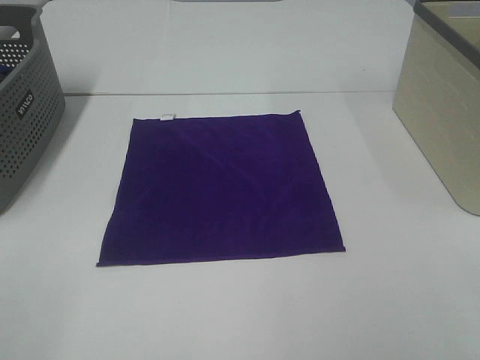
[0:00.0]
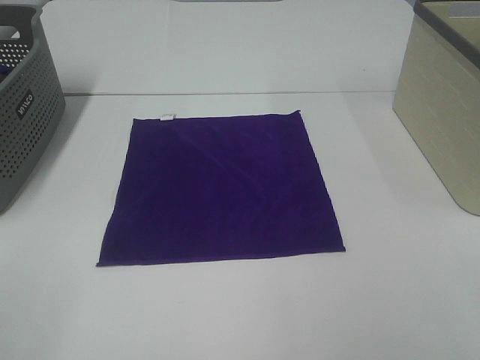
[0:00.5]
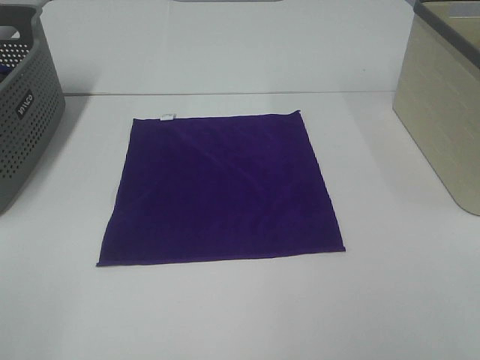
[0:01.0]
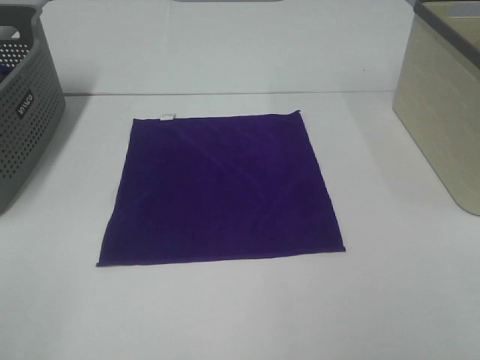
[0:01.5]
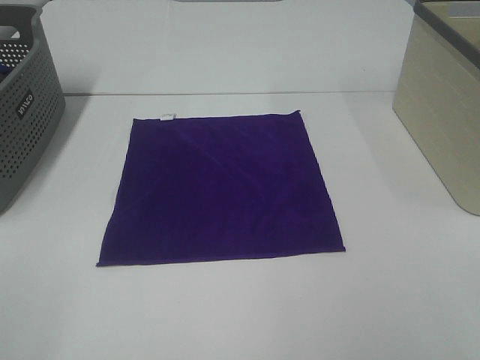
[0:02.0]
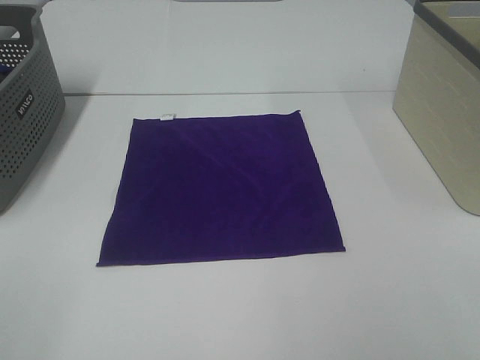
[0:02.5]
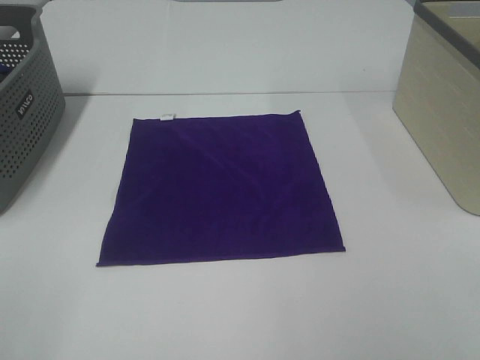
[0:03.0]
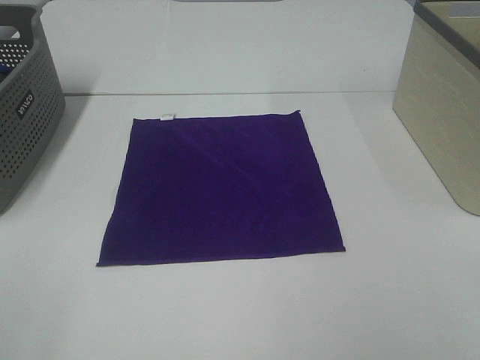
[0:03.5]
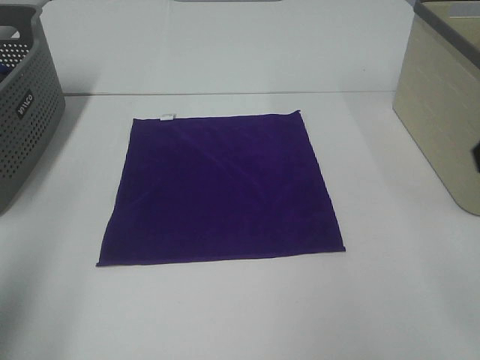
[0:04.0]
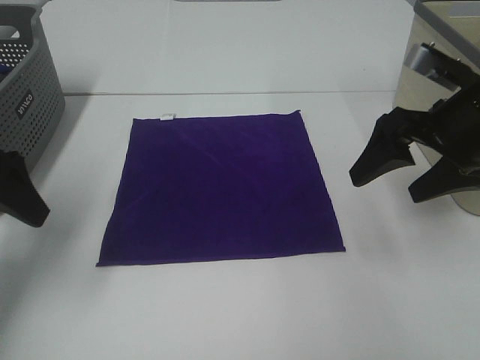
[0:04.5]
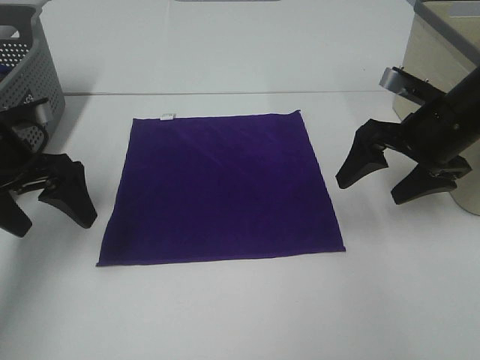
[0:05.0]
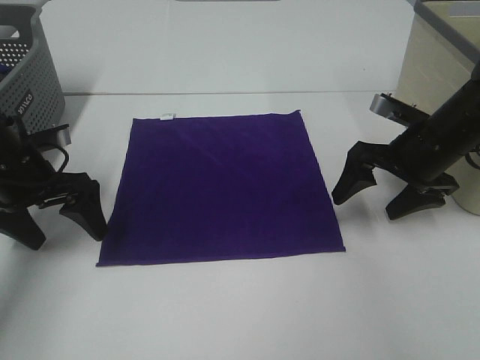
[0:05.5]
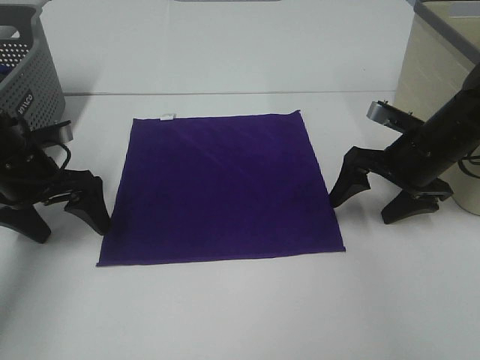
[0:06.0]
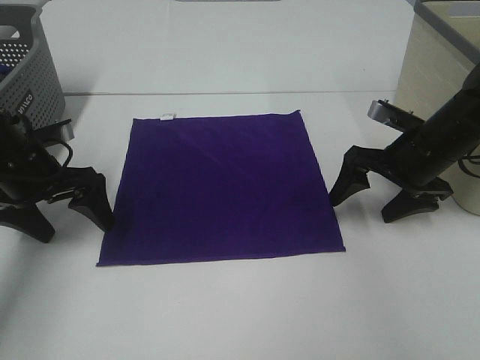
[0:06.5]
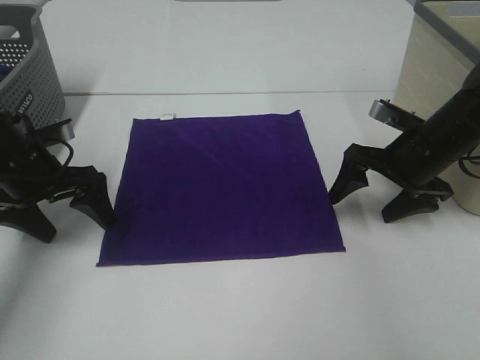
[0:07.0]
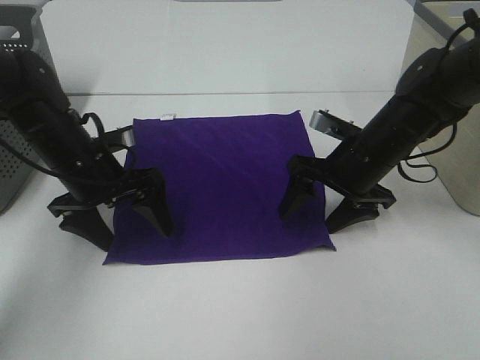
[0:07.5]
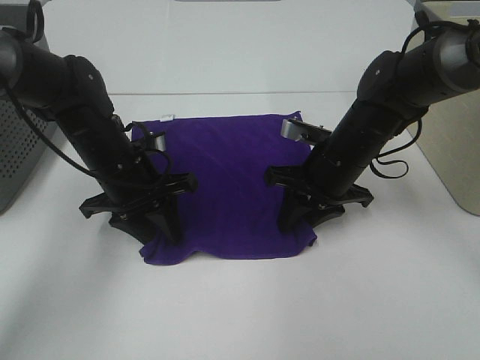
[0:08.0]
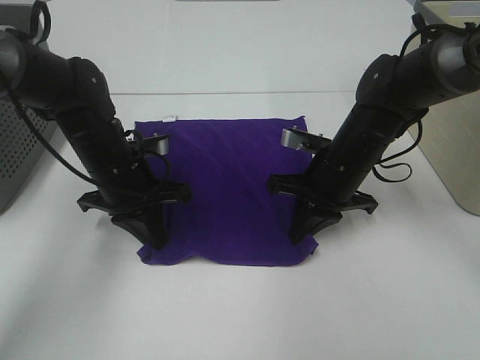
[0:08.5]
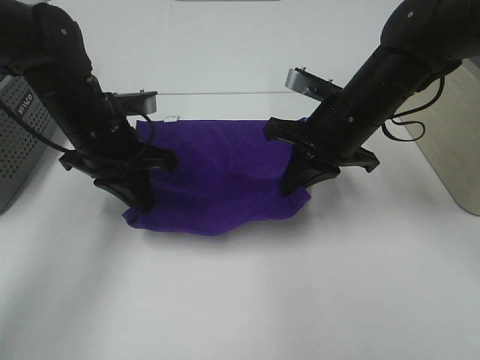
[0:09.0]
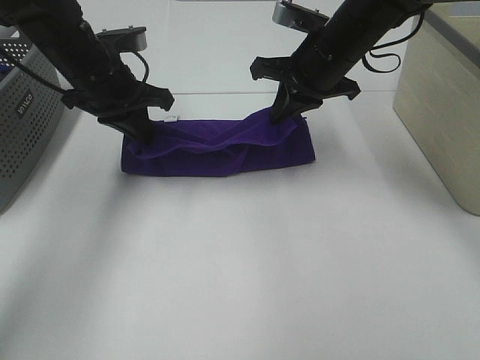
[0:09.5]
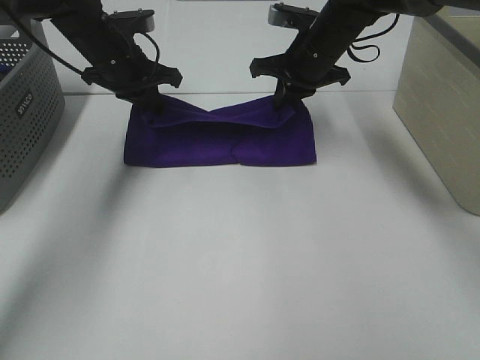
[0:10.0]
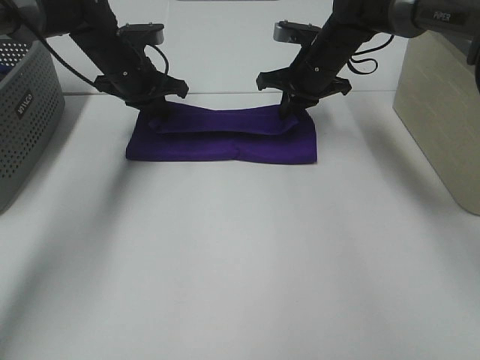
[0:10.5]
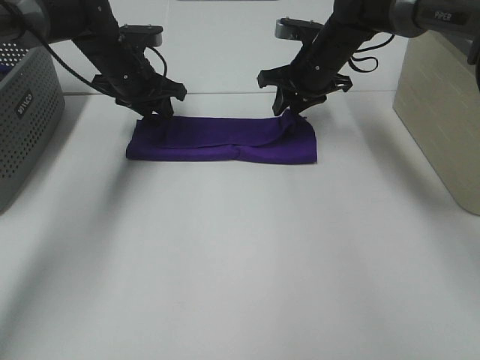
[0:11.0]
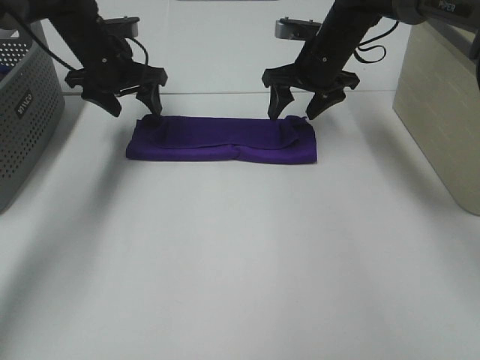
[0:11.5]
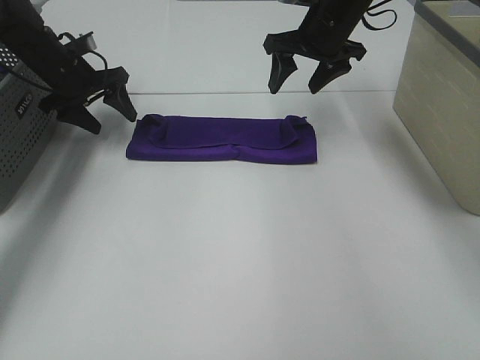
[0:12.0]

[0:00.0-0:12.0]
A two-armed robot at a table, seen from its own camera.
Task of the whole recording: Fold towels.
Step, 0:00.0 to 0:08.5: Left hand: grab the bottom left corner of purple towel.
Step, 0:00.0 to 0:08.5: Right hand: grab the bottom right corner of purple towel.
Step, 0:09.0 to 0:10.5: Left hand: fold the purple towel up.
Step, 0:09.0 to 0:10.5: Right hand: fold the purple towel up.
0:00.0 to 0:02.0: Both grippers stay put.
0:02.0 to 0:04.0: The left gripper goes some 15 cm forward.
0:04.0 to 0:06.0: The left gripper goes about 30 cm forward and downward, while the right gripper heads downward and forward, covering about 25 cm.
0:06.0 to 0:08.0: The right gripper travels to the left by some 10 cm, and closes up. The left gripper is displaced to the right by about 10 cm, and closes its fingers.
0:08.0 to 0:10.0: Both grippers move forward and upward, about 15 cm.
0:10.0 to 0:12.0: The left gripper goes approximately 10 cm to the left, and opens up. Meanwhile the right gripper opens its fingers.

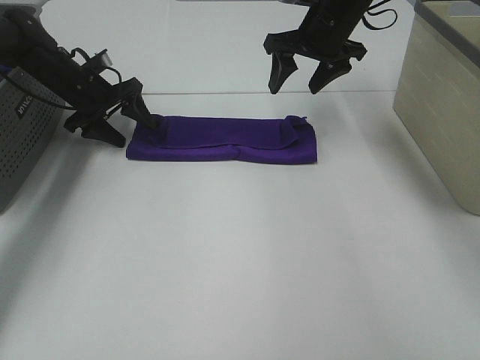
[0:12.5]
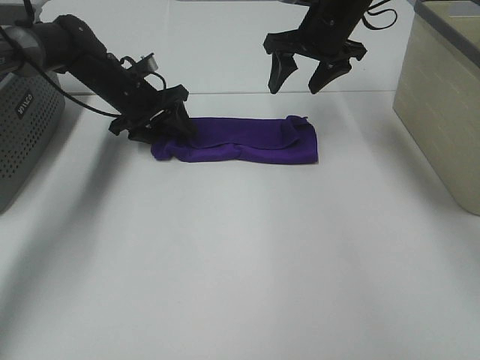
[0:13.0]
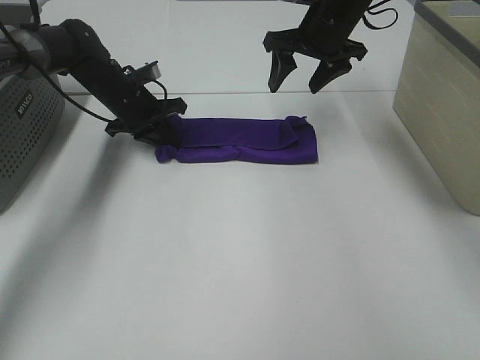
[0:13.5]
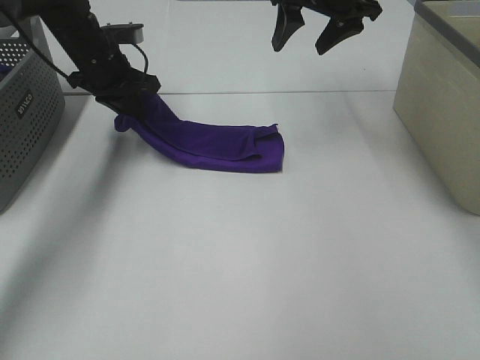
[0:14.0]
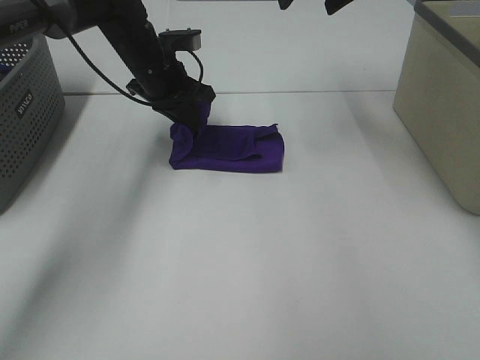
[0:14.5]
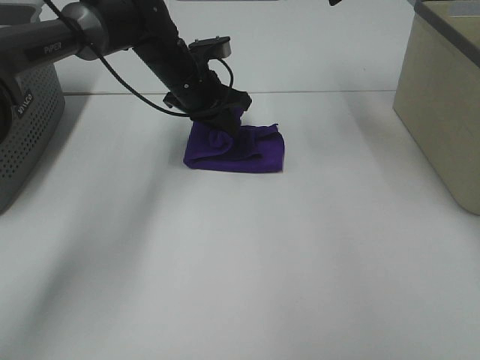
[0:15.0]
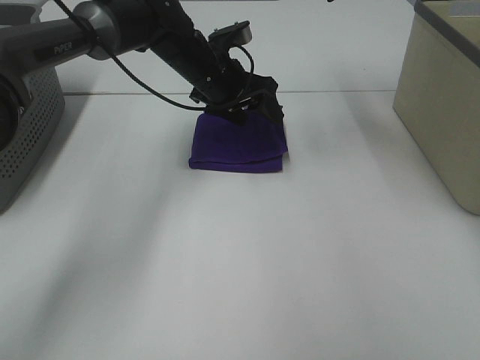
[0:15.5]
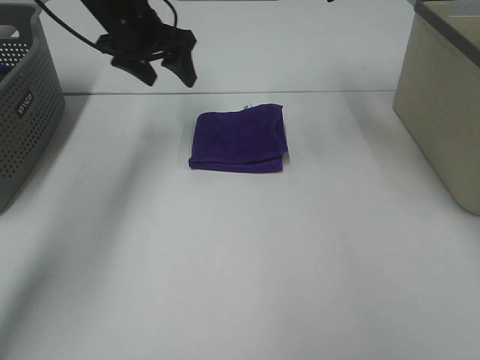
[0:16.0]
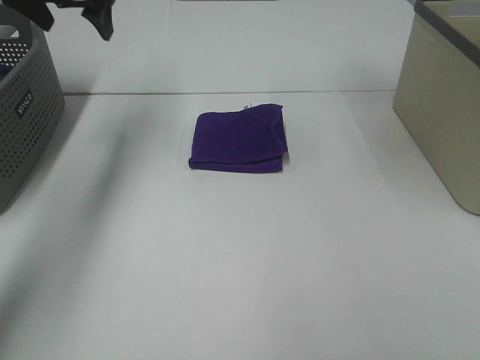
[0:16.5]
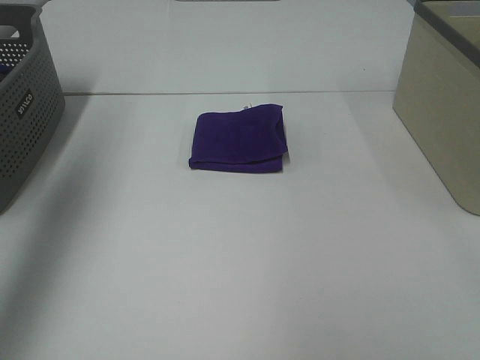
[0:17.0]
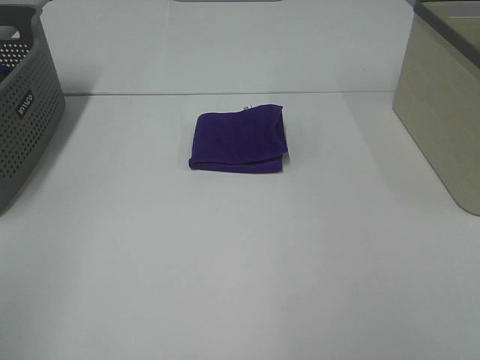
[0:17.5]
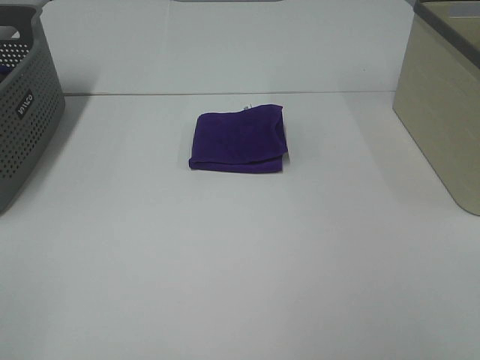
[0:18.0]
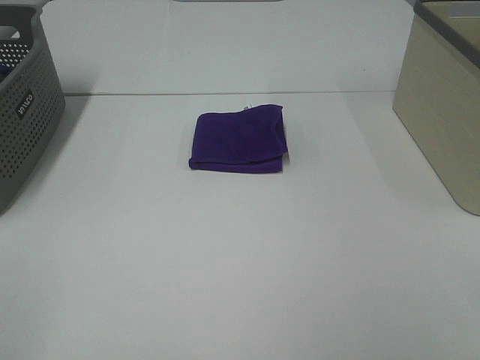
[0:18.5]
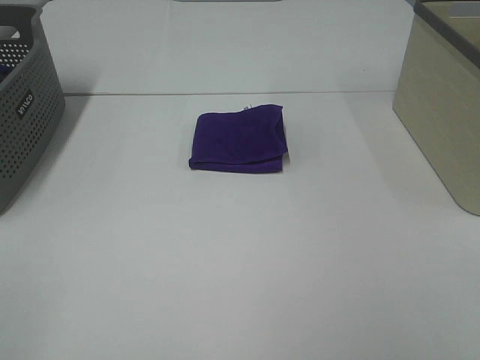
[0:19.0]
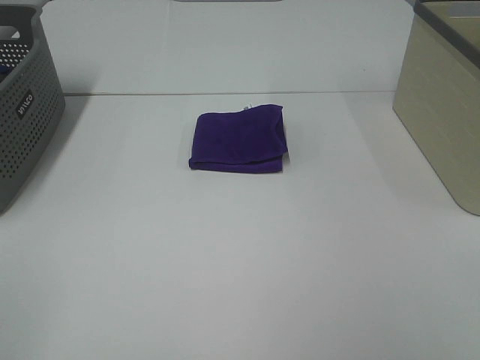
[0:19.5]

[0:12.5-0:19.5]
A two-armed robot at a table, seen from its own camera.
Task of the whole recording: Fold towels.
Step, 0:12.5 to 0:15.0: Left hand: fold the purple towel from left to right.
0:12.5 to 0:14.5: The left gripper travels to the right and upward by roughly 15 cm, and closes its fingers; the right gripper heads upward, covering roughly 10 cm.
0:14.5 to 0:16.0: The left gripper goes roughly 10 cm upward, and opens.
0:16.0 to 0:17.5: Both grippers move backward, roughly 40 cm.

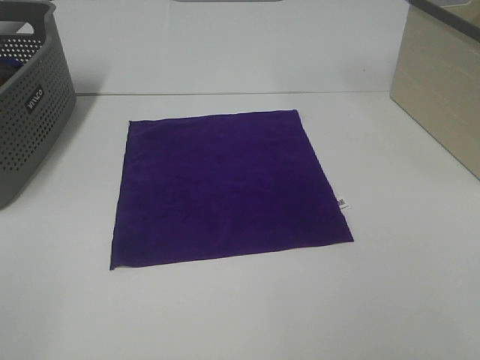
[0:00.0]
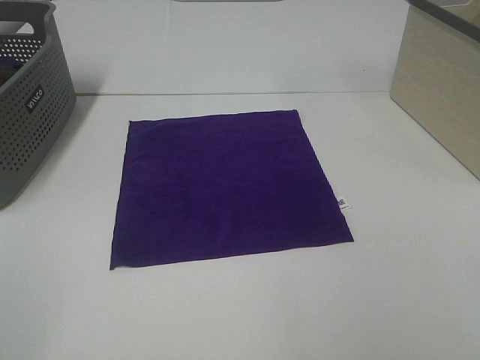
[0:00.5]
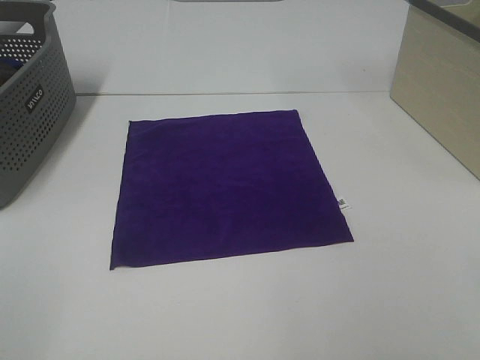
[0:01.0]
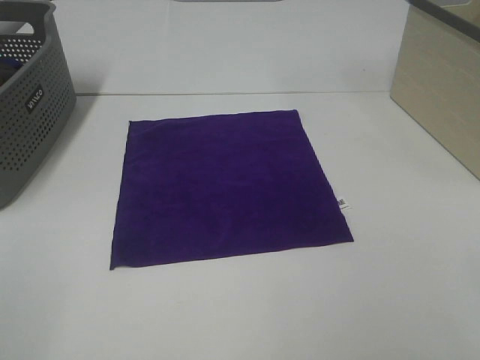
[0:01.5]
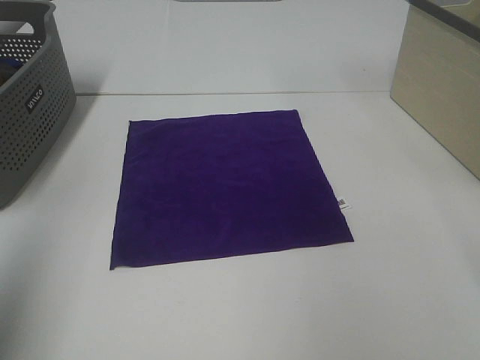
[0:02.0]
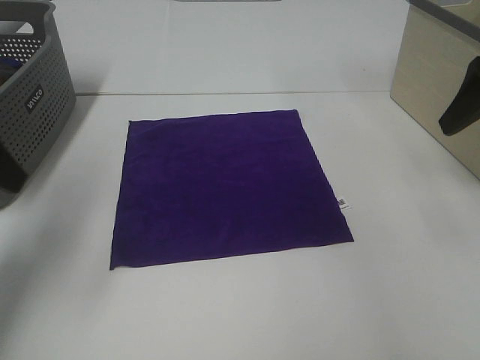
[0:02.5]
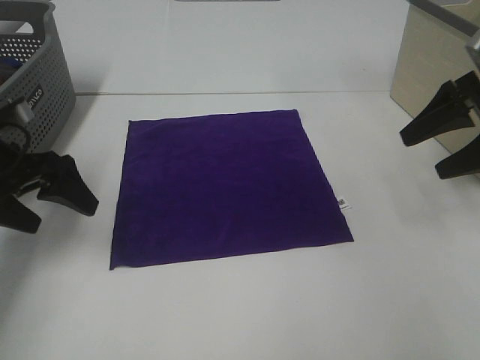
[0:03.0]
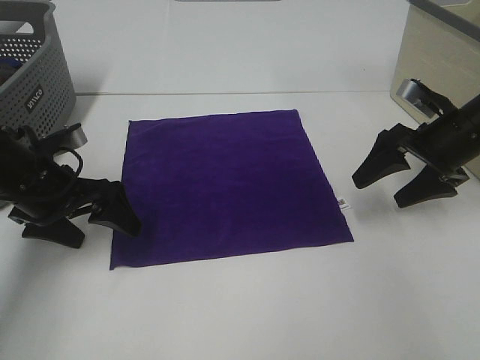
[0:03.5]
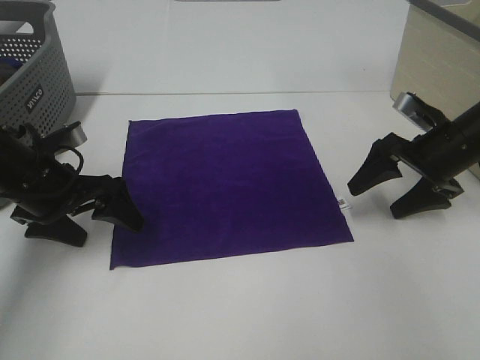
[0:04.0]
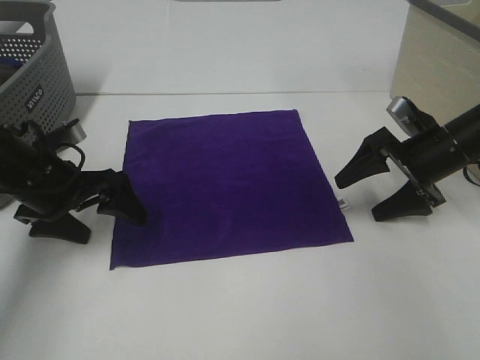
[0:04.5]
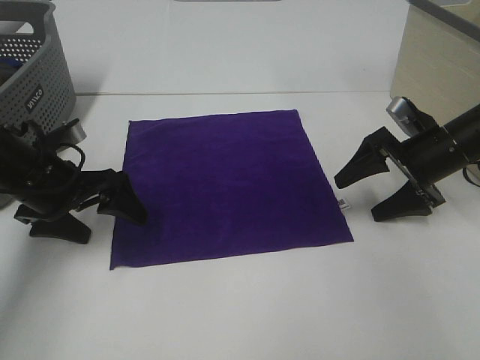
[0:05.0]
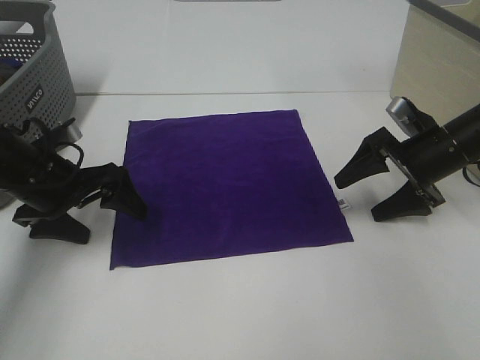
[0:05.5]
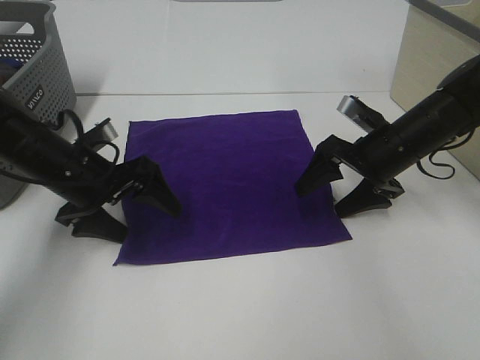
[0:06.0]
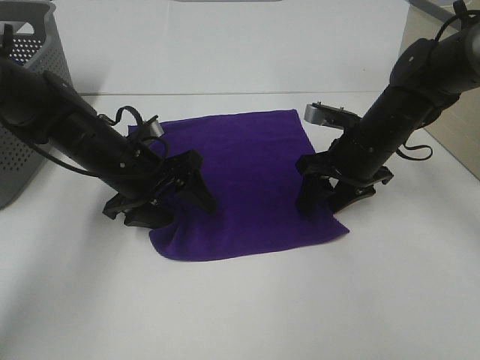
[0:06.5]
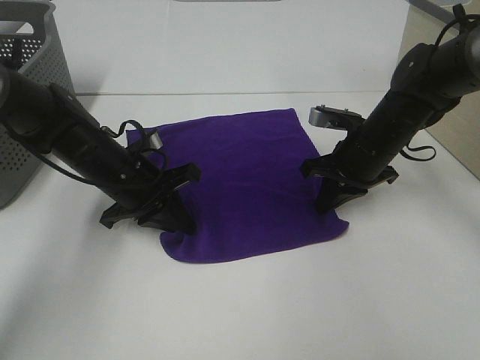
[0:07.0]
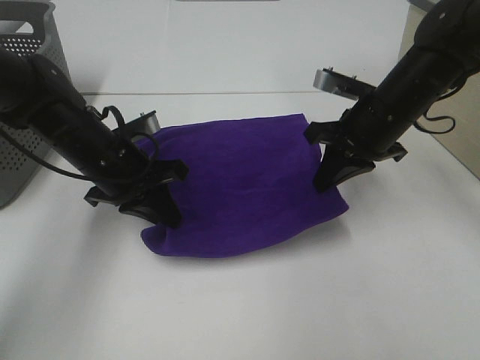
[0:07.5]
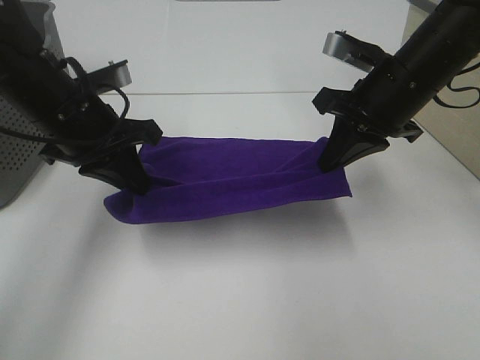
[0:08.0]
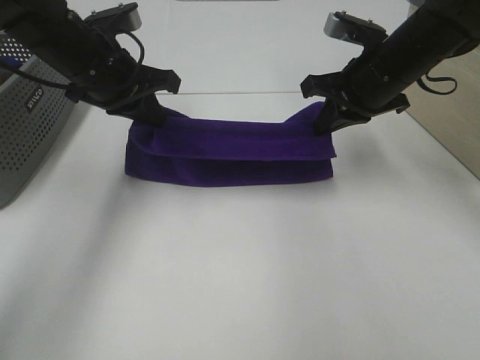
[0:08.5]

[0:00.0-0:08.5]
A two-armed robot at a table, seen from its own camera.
Task of the whole recording: Fold towels.
Step, 0:00.0 to 0:07.0: Left hand: grab the bottom left corner of purple towel.
Step, 0:00.0 to 0:07.0: Right hand: grab the bottom right corner of purple towel.
0:00.0 to 0:02.0: The left gripper travels forward and upward by approximately 15 cm.
0:02.0 to 0:04.0: Both grippers travel together downward and forward, roughly 30 cm.
0:04.0 to 0:06.5: The left gripper is displaced to the right by roughly 10 cm. Meanwhile the right gripper travels to the left by roughly 10 cm, and closes up.
0:06.5 to 0:08.5: The grippers both shift upward by about 10 cm. The left gripper closes; the right gripper closes.
